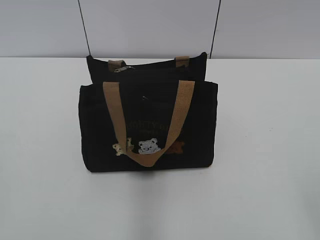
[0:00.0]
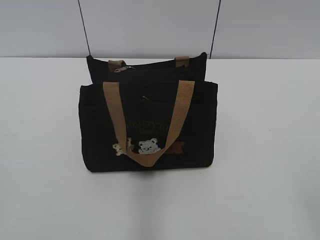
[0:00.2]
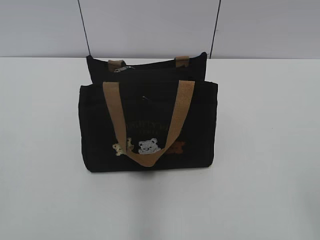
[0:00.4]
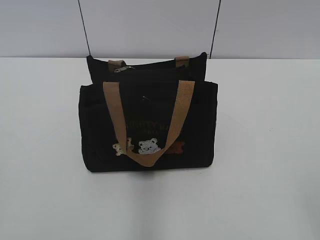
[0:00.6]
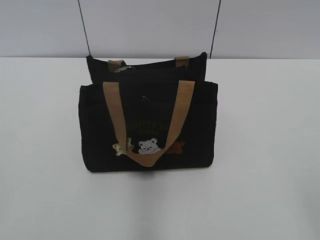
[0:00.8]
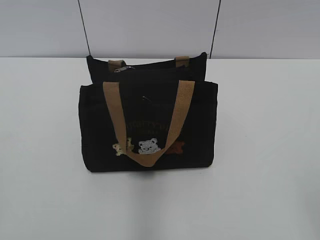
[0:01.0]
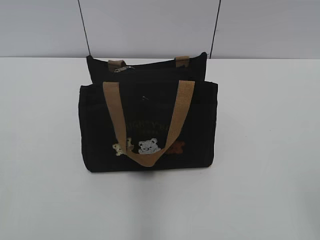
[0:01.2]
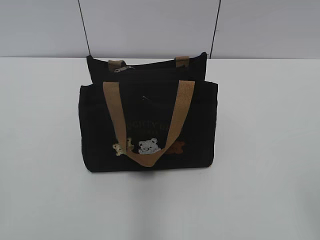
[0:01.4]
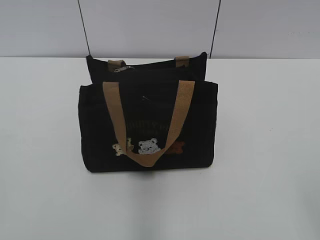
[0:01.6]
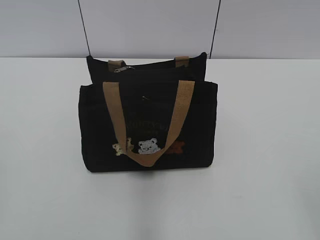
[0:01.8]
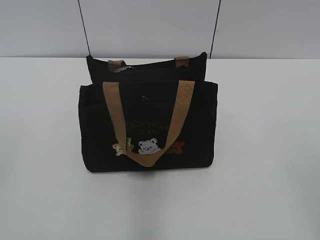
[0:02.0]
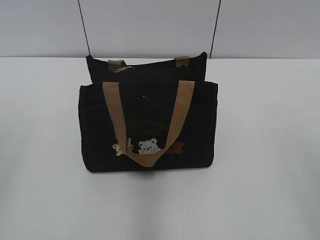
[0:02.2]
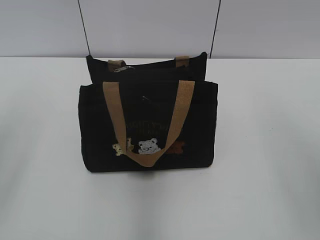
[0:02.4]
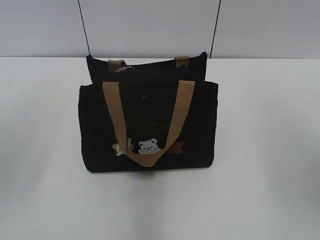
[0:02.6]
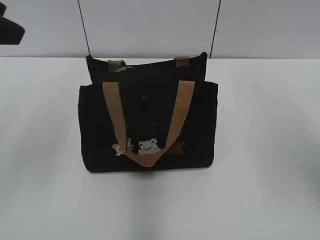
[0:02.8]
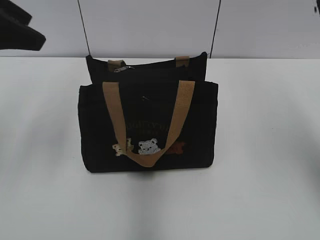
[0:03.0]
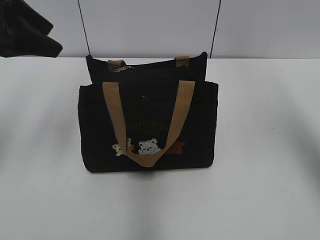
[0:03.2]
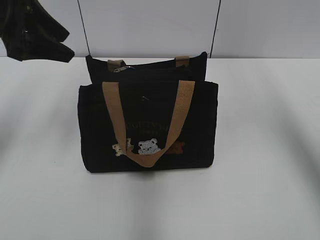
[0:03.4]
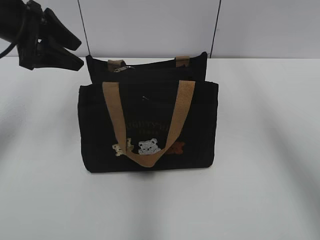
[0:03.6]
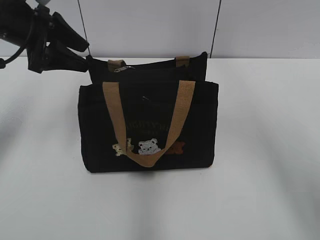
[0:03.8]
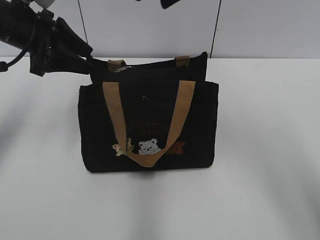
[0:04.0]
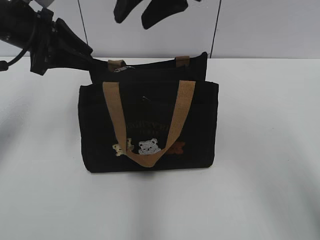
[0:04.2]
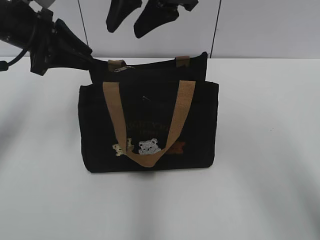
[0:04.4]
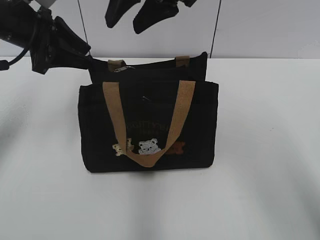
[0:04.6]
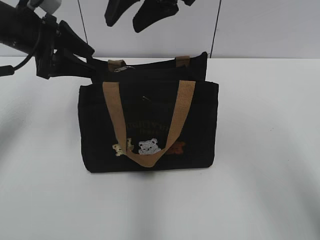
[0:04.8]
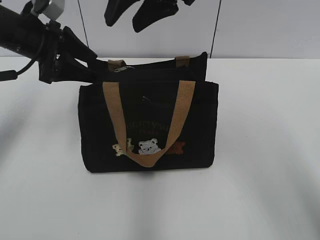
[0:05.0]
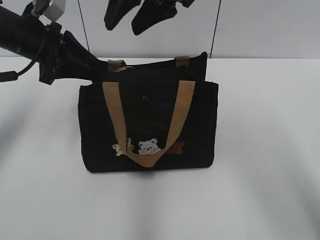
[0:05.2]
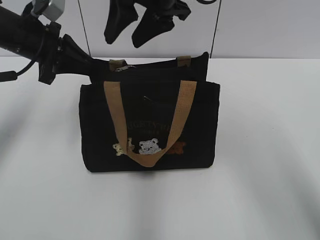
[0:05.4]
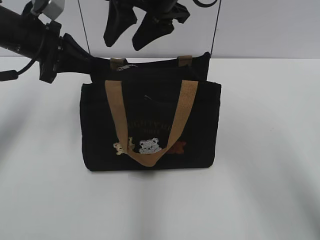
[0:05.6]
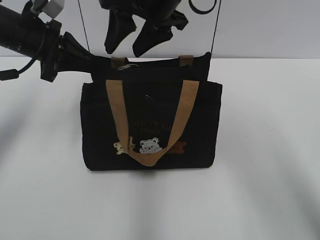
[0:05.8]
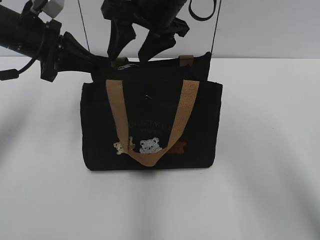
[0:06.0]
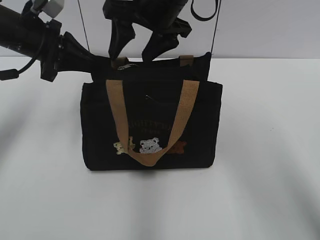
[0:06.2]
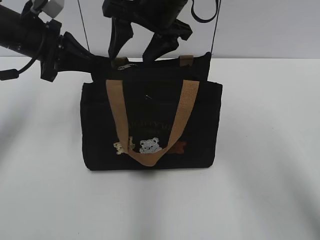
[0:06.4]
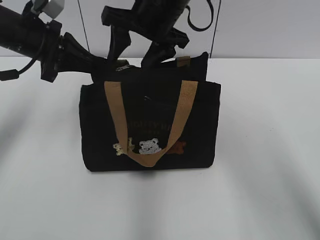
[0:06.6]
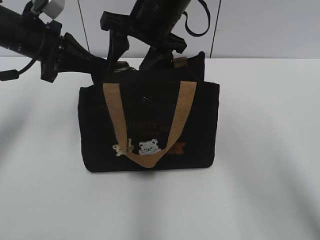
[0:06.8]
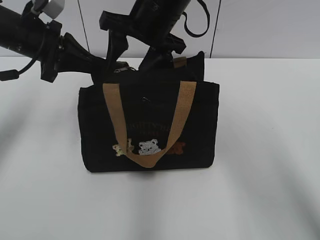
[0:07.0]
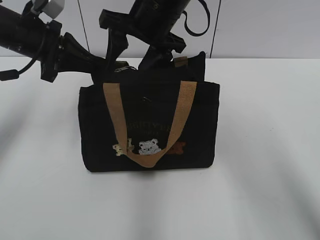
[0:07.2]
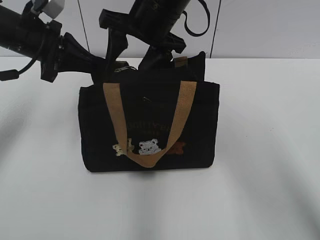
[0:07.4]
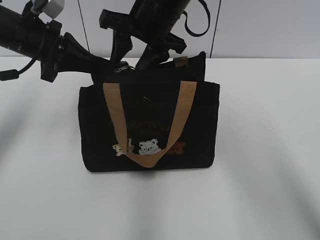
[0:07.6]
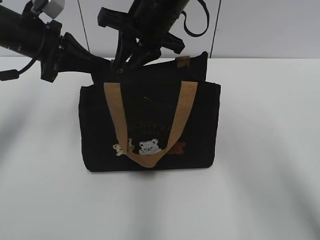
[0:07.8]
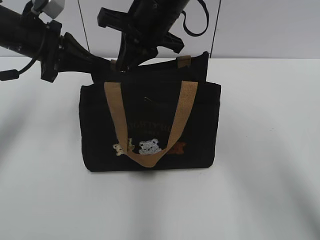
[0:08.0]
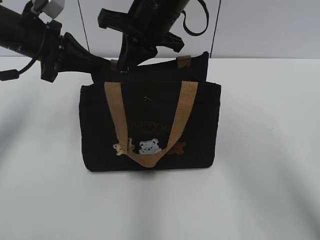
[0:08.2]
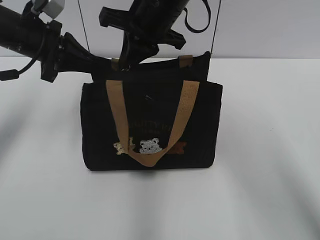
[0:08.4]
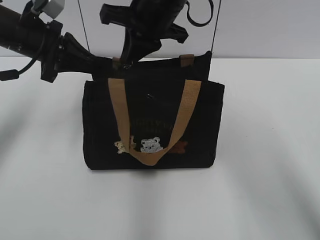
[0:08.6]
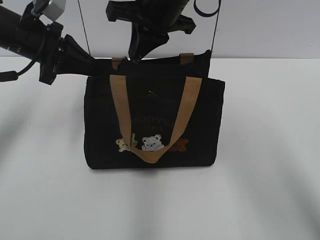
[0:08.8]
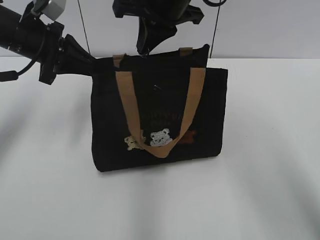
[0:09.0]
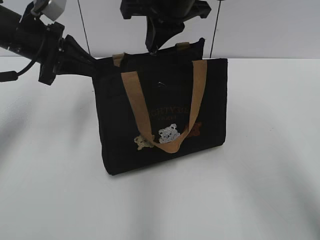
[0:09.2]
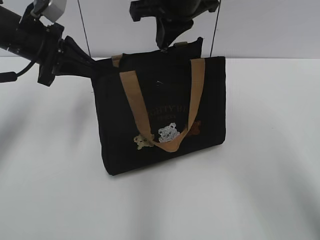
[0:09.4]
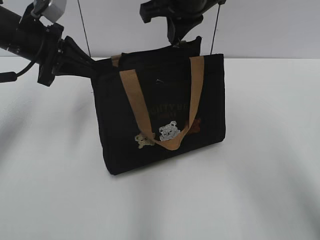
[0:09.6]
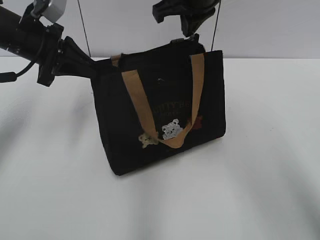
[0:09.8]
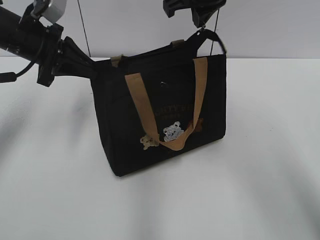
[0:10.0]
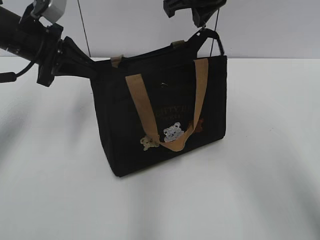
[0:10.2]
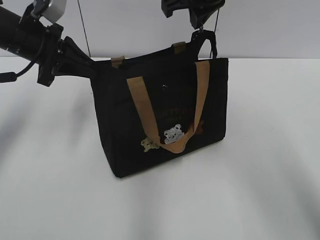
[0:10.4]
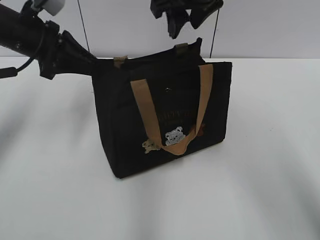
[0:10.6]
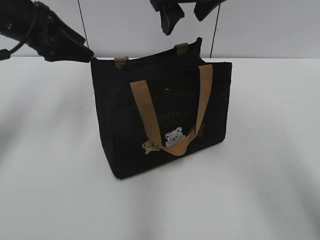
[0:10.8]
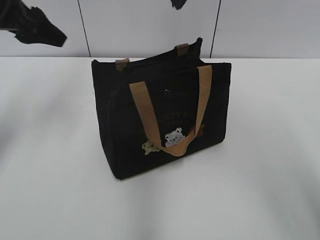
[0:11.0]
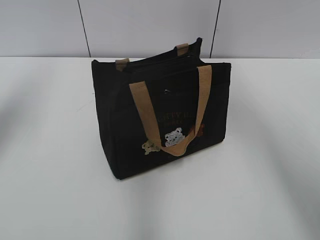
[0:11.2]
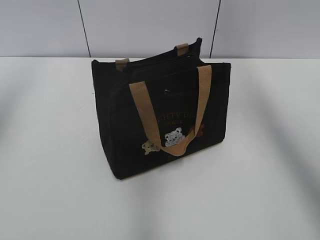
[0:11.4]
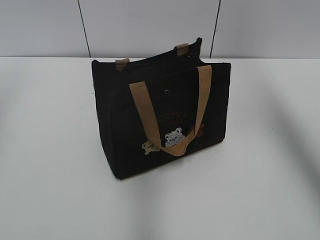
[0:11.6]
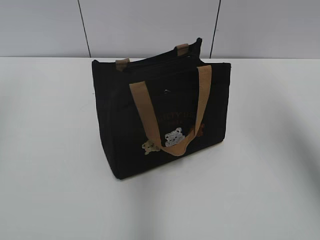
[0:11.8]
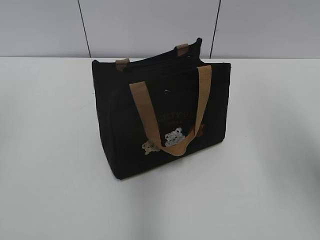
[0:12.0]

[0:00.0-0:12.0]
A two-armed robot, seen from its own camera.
Step, 0:00.0 to 0:10.4: Pull open the zipper with your right hand.
0:01.6 to 0:03.0: The right gripper is displaced forward and upward by approximately 30 cm. Meanwhile the left gripper is displaced forward by some 25 cm.
0:03.0 to 0:04.4: The left gripper heads forward and downward, covering some 15 cm, and closes up; the right gripper heads to the left and forward, covering roughly 25 cm.
0:04.4 to 0:06.0: The right gripper shifts by approximately 5 cm. Meanwhile the left gripper closes.
0:06.0 to 0:07.6: There are only small adjustments of the grippers.
0:07.6 to 0:09.0: The right gripper closes its fingers.
0:10.4 to 0:12.0: The right gripper travels to the right, backward and upward by about 25 cm, and opens its fingers; the left gripper shifts roughly 30 cm backward, upward and to the left, and opens.

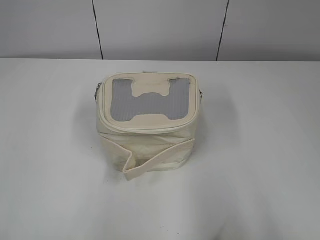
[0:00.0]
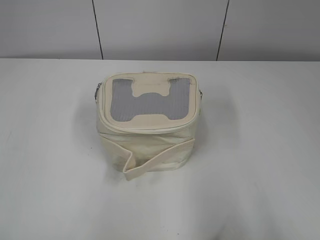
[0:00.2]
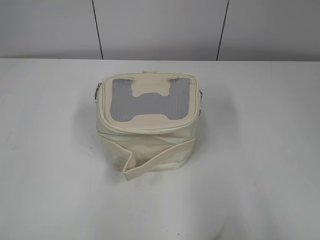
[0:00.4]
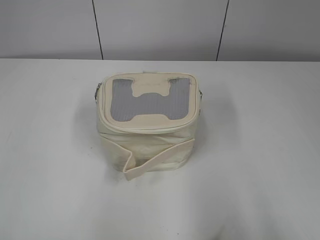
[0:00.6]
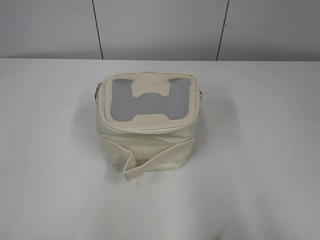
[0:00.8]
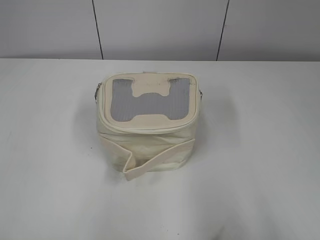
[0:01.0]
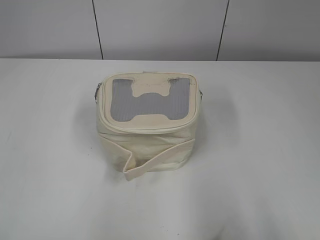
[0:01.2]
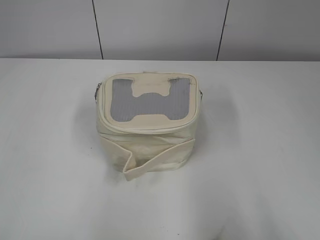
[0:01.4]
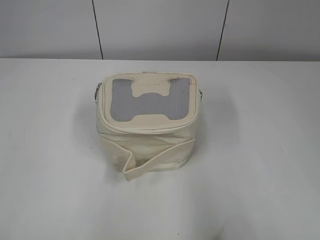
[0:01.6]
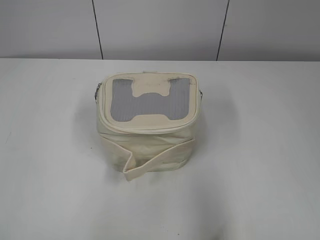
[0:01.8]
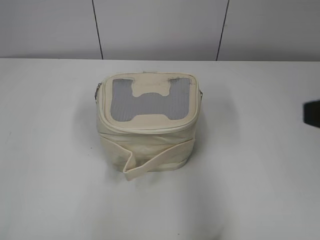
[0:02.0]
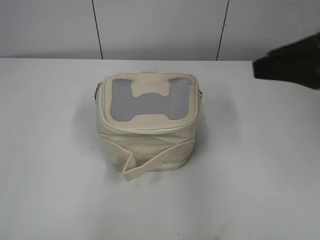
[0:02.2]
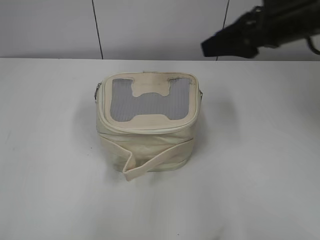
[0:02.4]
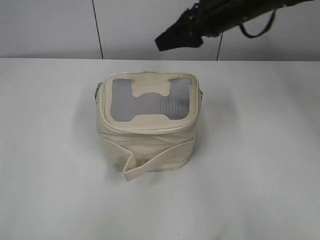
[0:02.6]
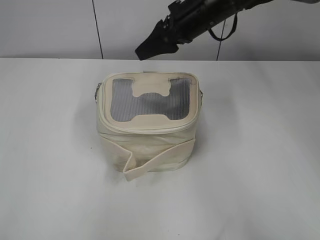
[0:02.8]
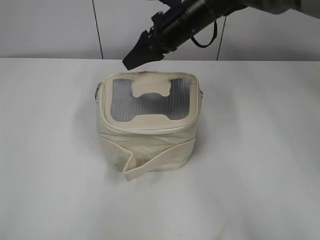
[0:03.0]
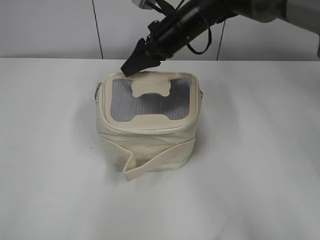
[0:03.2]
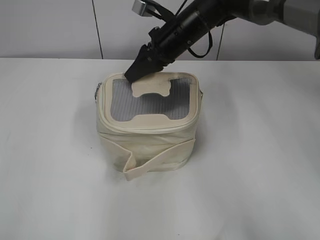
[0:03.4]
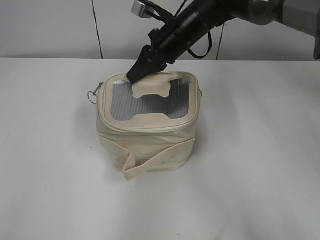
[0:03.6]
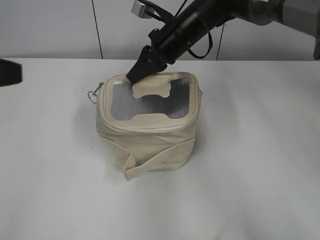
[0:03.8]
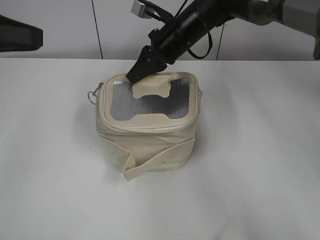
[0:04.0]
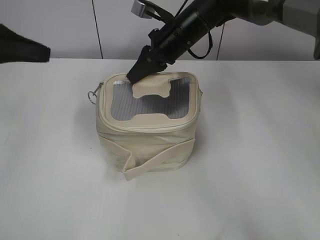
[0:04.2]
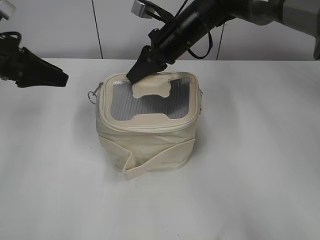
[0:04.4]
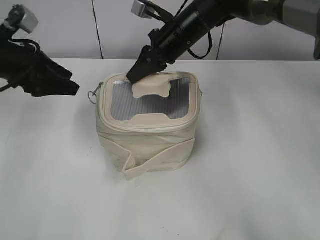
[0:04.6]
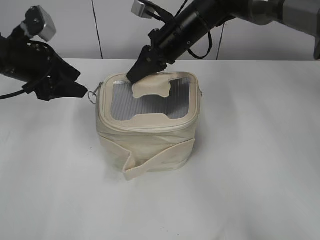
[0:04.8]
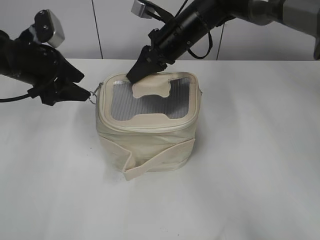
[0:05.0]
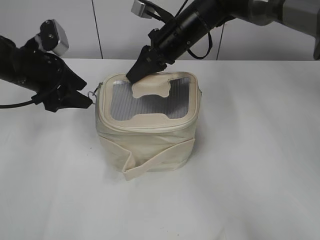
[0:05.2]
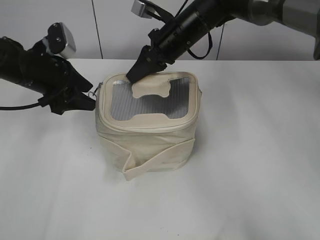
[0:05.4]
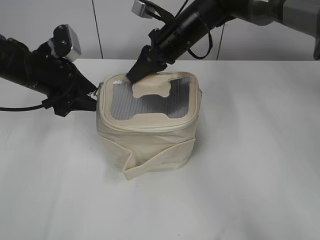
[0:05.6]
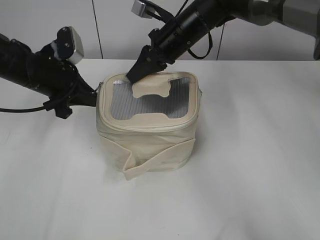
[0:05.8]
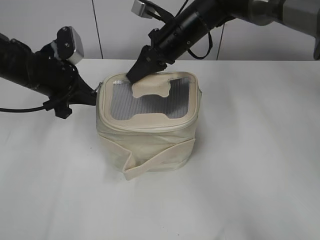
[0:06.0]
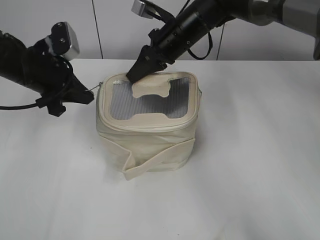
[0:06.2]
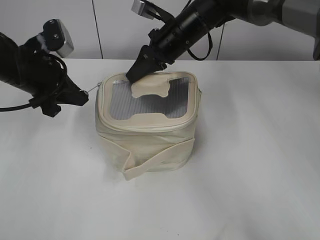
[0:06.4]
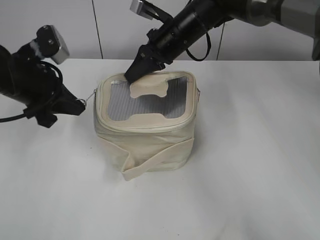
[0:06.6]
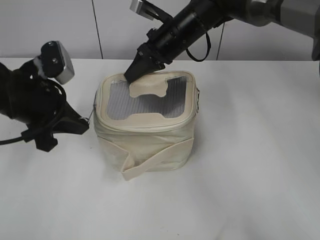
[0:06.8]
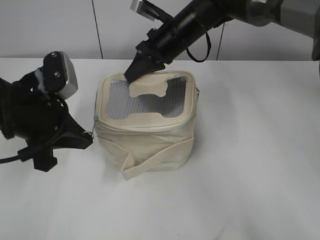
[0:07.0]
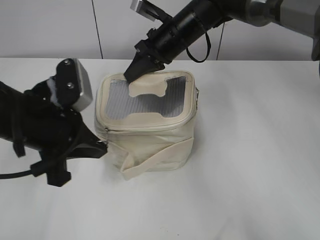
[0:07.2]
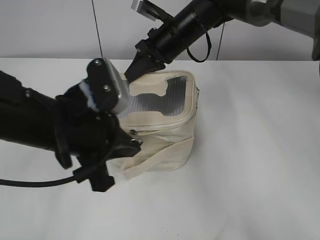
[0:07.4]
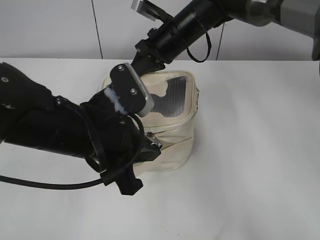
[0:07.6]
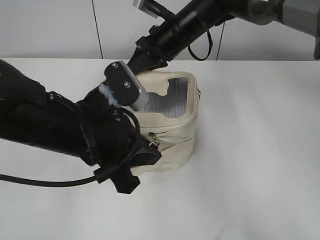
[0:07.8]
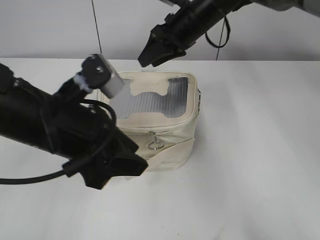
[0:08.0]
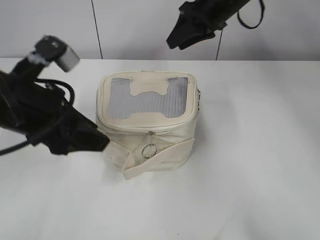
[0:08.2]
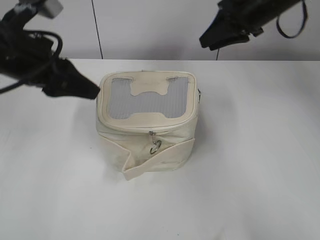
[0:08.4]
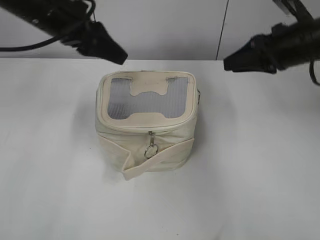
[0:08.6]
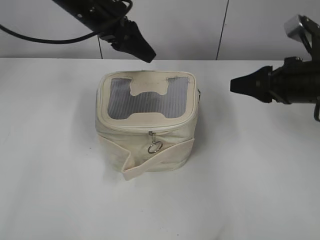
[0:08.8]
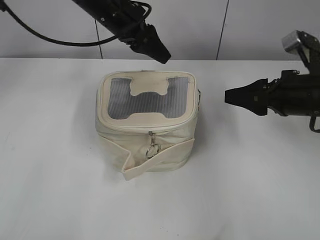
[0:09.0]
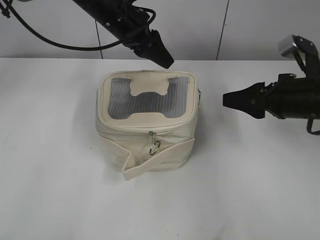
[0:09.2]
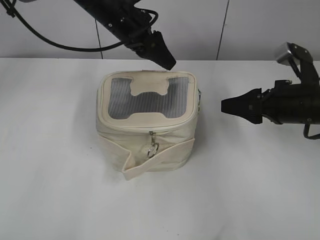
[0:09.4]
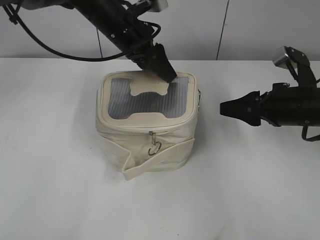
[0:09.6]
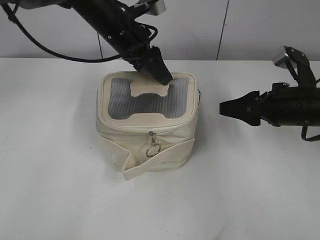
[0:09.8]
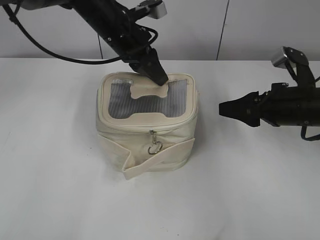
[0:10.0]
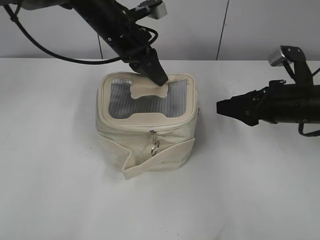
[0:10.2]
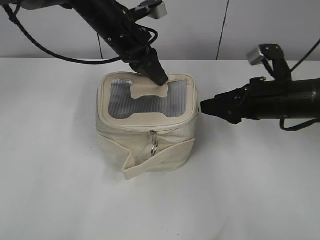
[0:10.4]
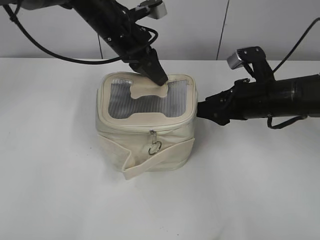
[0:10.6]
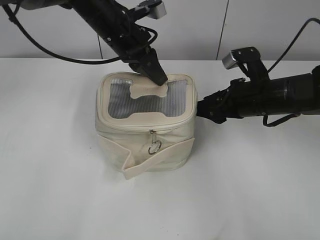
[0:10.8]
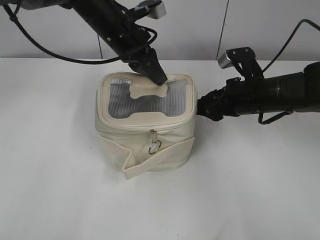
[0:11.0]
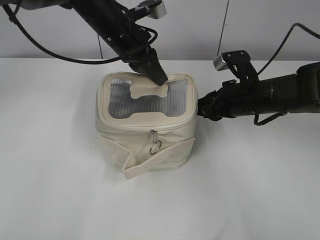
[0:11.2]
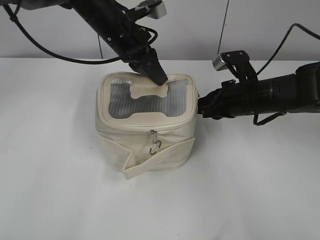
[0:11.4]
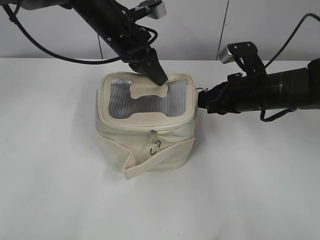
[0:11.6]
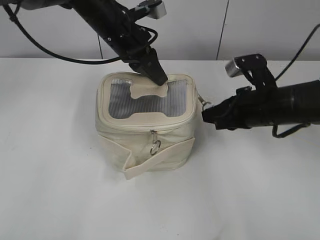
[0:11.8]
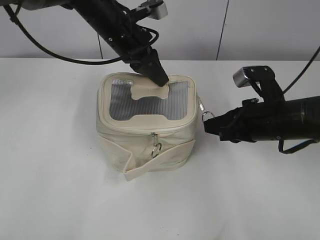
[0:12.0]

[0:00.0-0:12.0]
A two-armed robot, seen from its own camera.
Step, 0:00.0 to 0:07.8: Zip up the bag with your left hand.
0:01.6 to 0:03.0: The right gripper is displaced forward and to the left by some 50 cm.
0:03.0 to 0:04.4: The left gripper shifts roughly 35 cm forward, and opens its fingers. Meanwhile the right gripper closes up.
0:04.4 to 0:06.0: The left gripper goes approximately 5 cm to the right, and closes its fingers.
0:06.0 to 0:07.6: The left gripper goes about 20 cm backward and to the right.
0:07.6 to 0:09.0: The right gripper shifts approximately 25 cm to the right and backward, and opens up. Meanwhile the left gripper shifts roughly 25 cm forward, and opens.
0:09.0 to 0:10.4: The left gripper closes its fingers.
0:10.4 to 0:12.0: The right gripper closes up.
